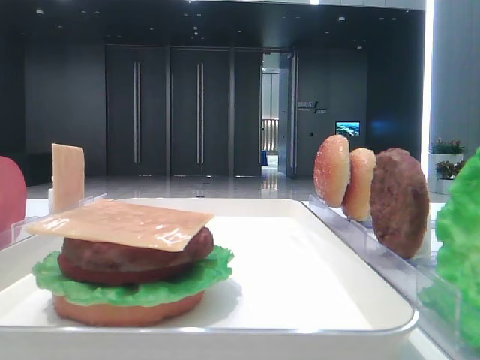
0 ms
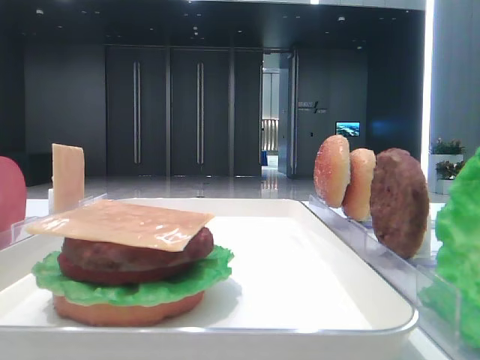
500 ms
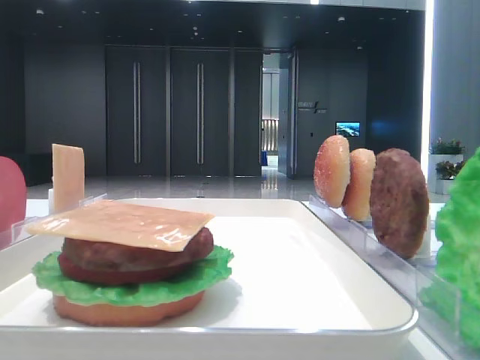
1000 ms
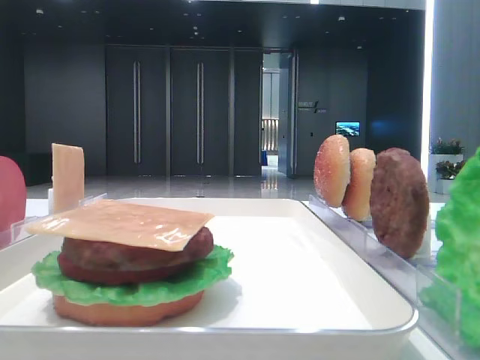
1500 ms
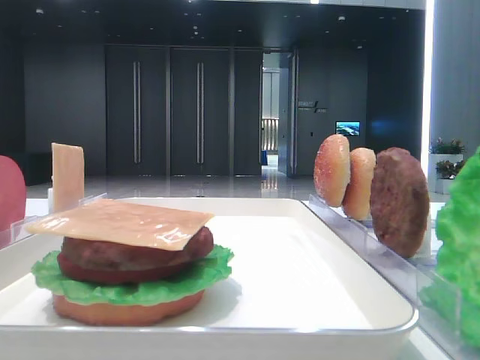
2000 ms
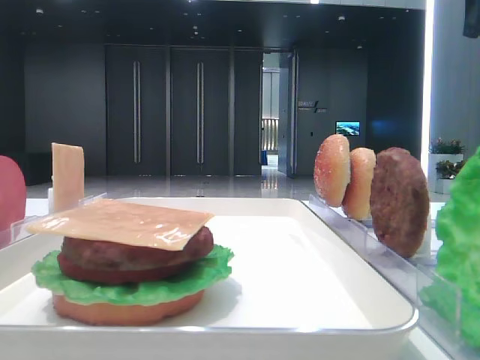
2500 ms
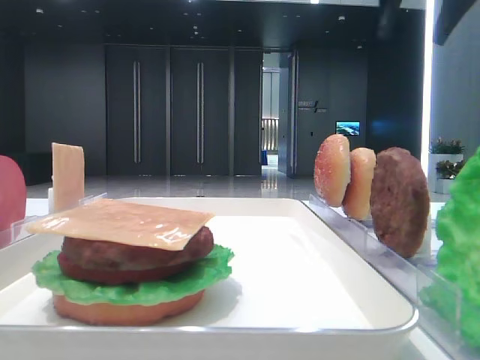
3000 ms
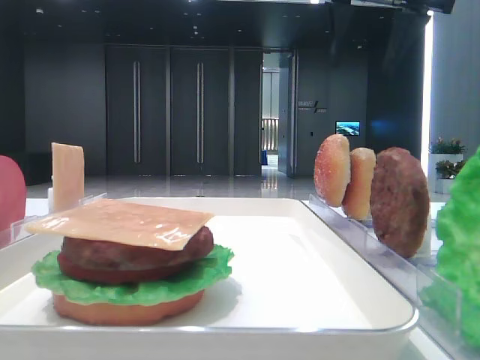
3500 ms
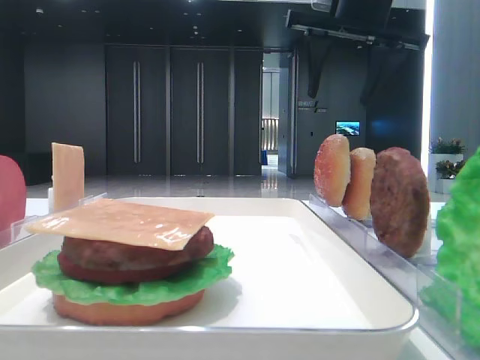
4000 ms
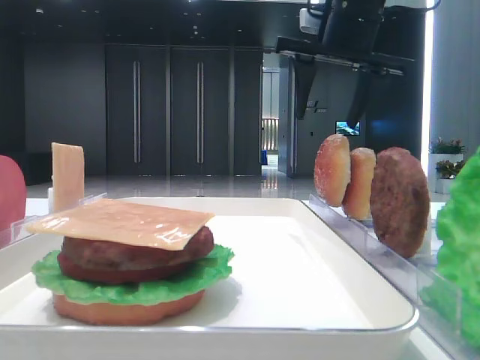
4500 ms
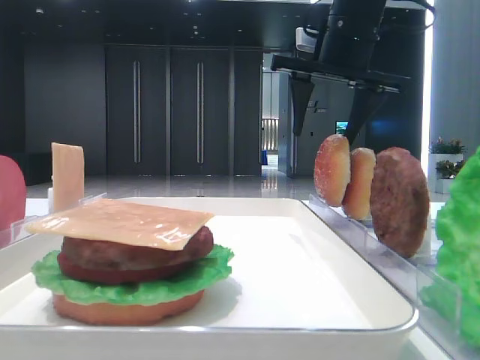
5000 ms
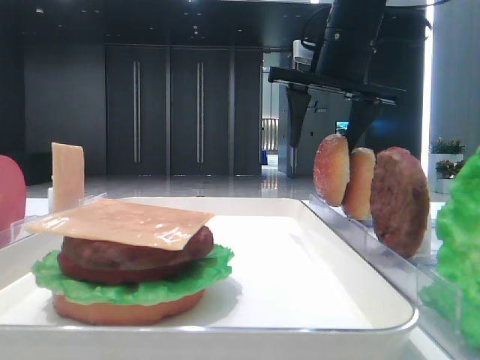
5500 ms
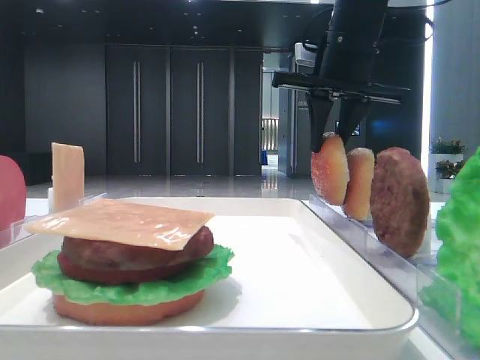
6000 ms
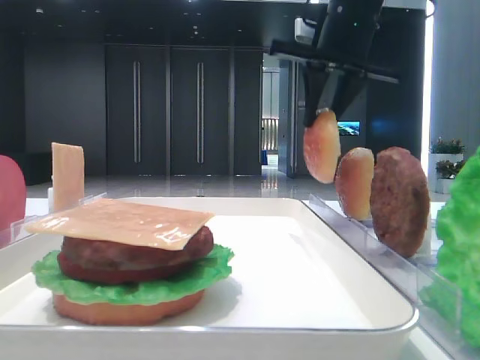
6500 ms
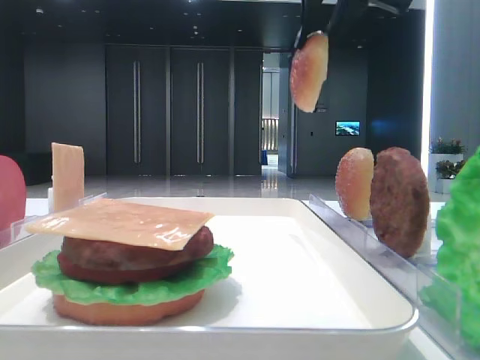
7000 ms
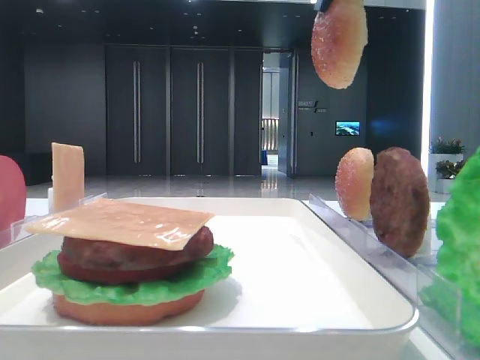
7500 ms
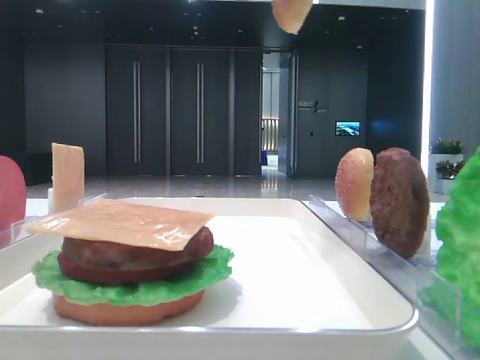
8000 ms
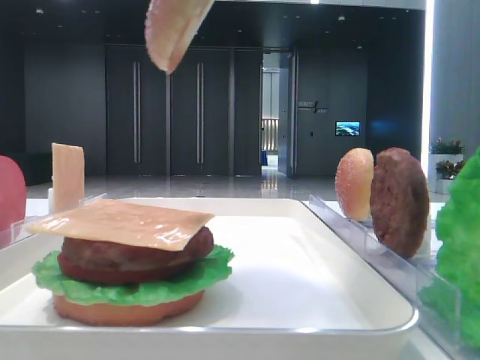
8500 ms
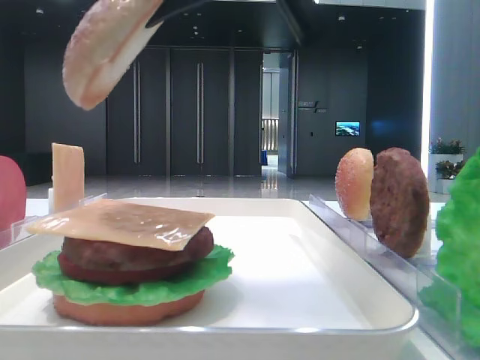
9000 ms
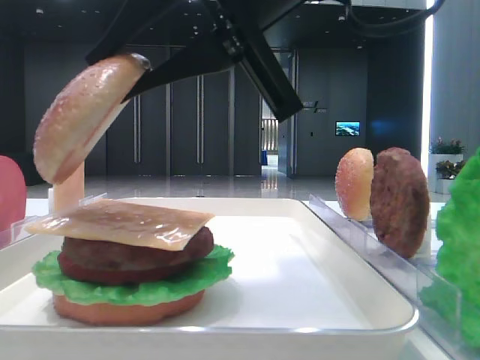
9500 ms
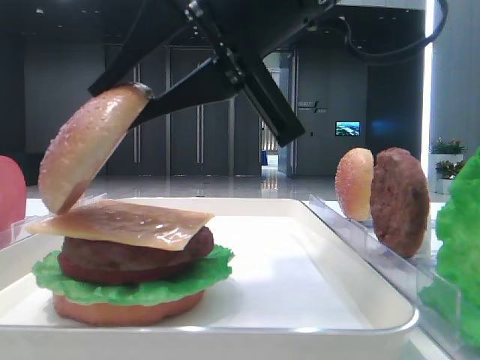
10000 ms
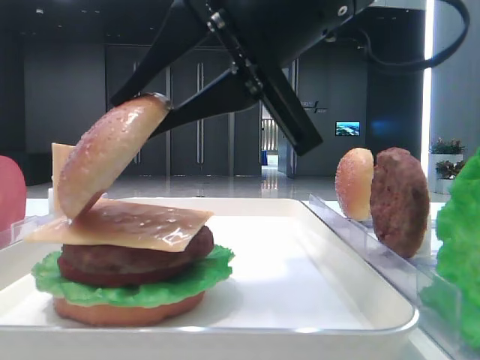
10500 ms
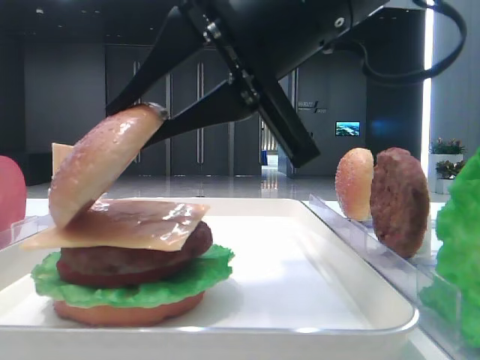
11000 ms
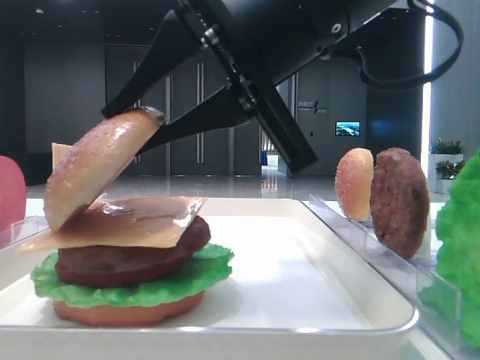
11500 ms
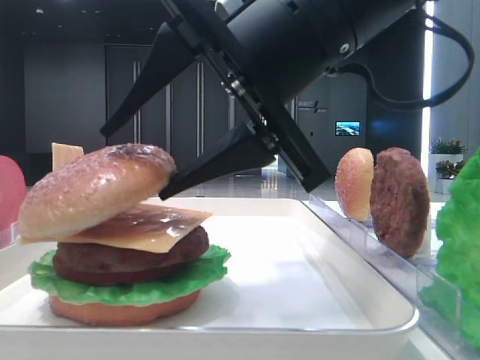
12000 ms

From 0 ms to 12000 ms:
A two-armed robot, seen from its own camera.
Step, from 0 ms to 6000 ms: Pick up the top bread slice with the right hand.
From 2000 ms to 4000 ms: The right gripper goes some 20 cm forward, to the left and downward.
From 4000 ms to 6000 ms: The right gripper is displaced downward by some 5 cm, and closes.
From 6000 ms to 8000 ms: The right gripper moves backward and upward, about 25 cm.
From 8000 ms to 10000 ms: The right gripper travels downward and to the left by about 20 cm.
From 10000 ms to 12000 ms: The right gripper opens.

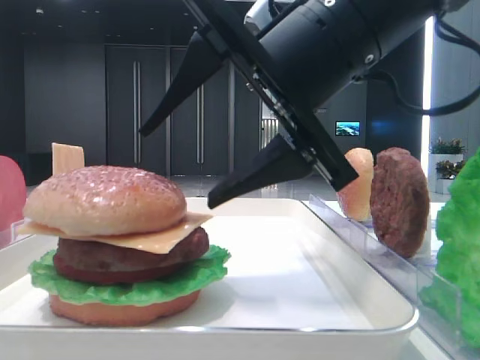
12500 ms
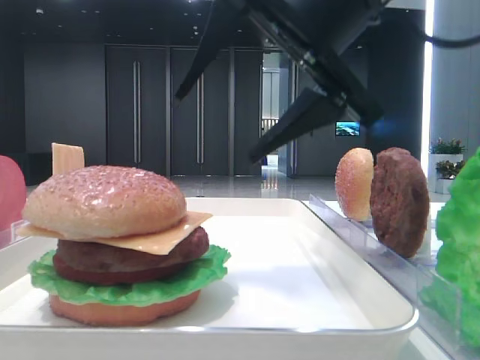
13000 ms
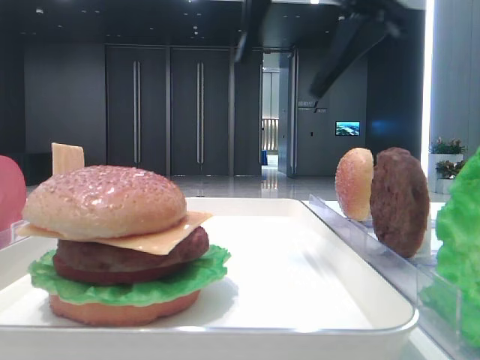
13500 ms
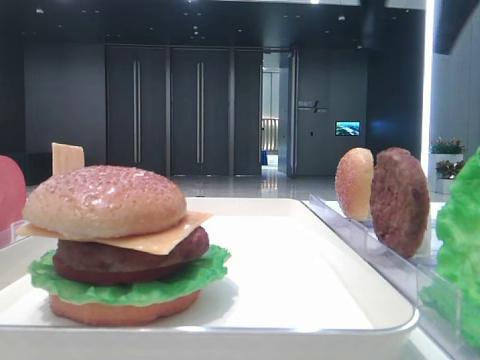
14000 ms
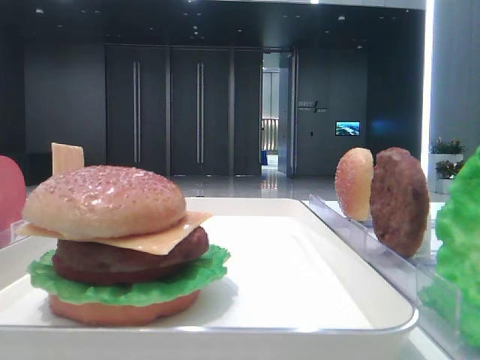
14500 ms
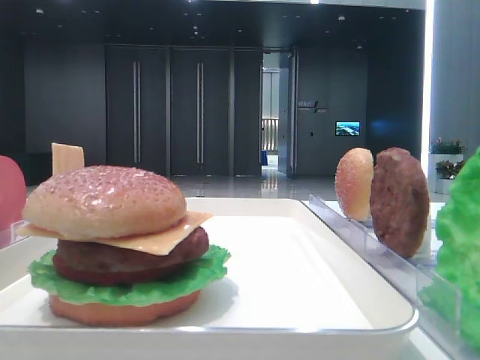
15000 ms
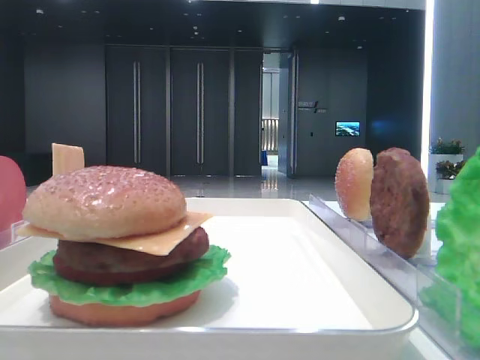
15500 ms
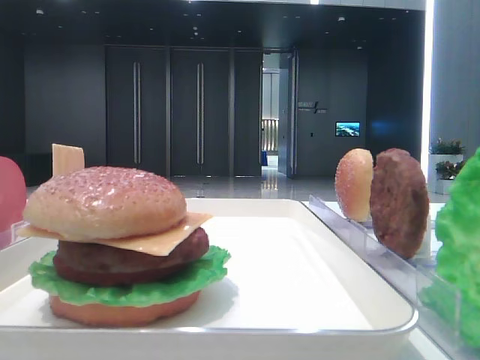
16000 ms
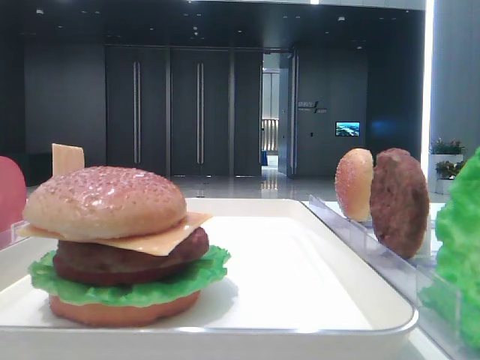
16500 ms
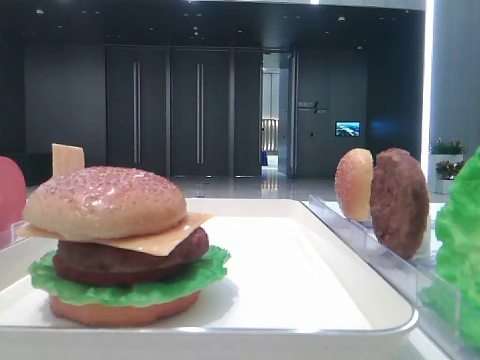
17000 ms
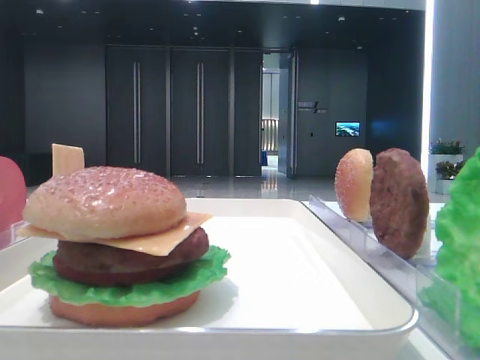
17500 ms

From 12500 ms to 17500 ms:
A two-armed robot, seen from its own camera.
From 12500 ms to 15000 ms: The right gripper moves to the right and upward, some 35 cm.

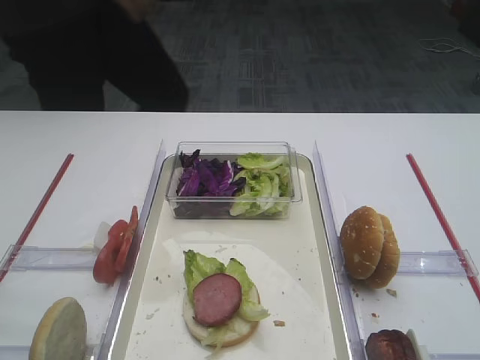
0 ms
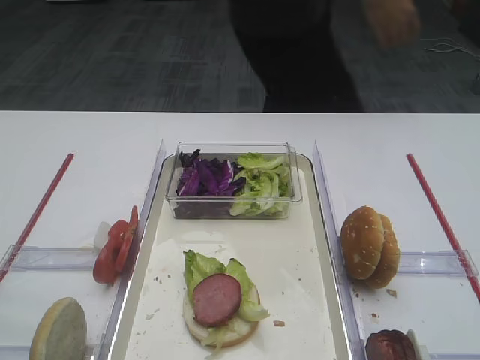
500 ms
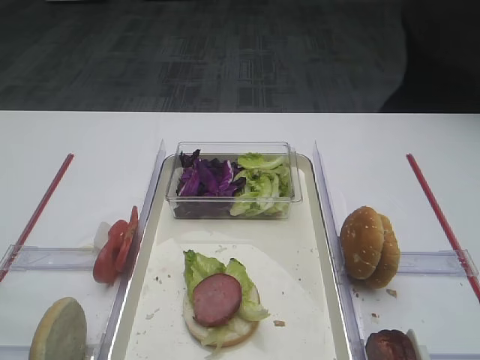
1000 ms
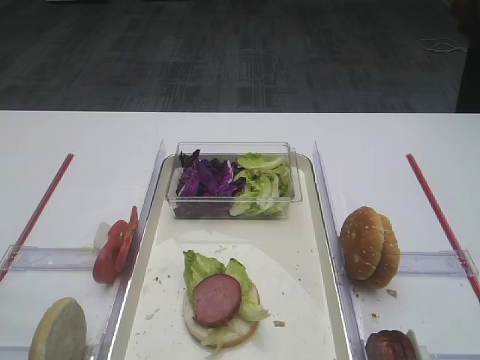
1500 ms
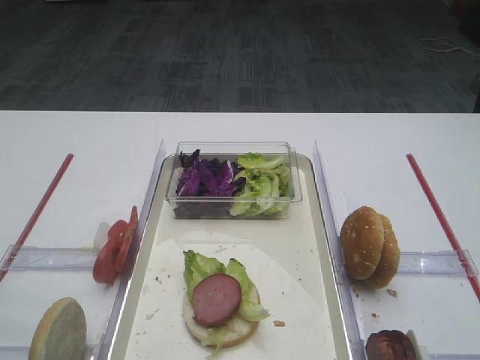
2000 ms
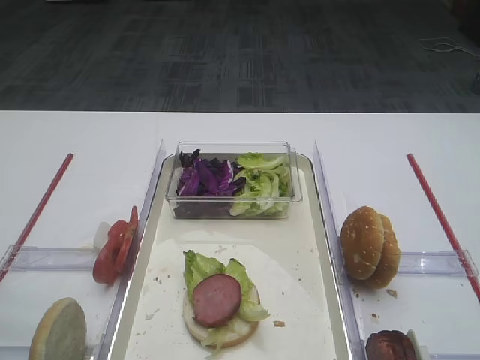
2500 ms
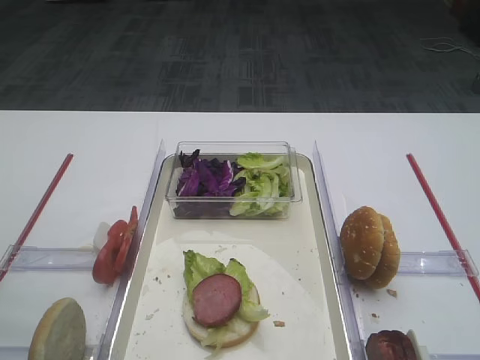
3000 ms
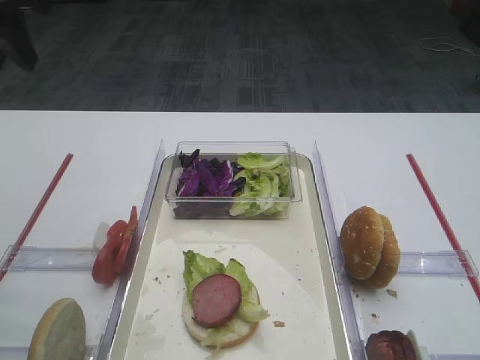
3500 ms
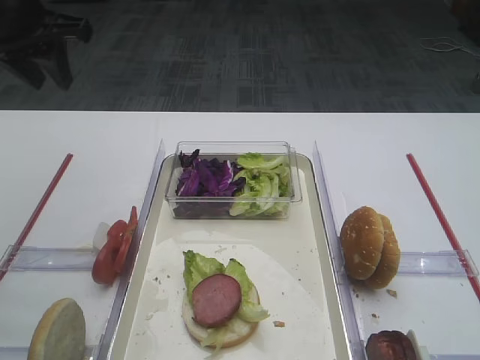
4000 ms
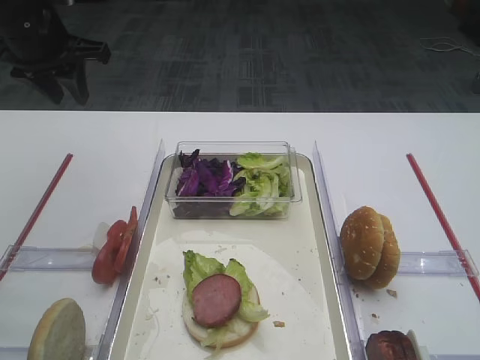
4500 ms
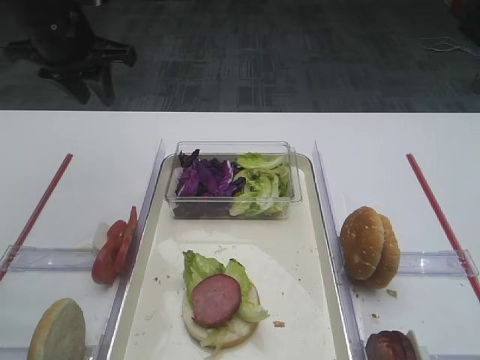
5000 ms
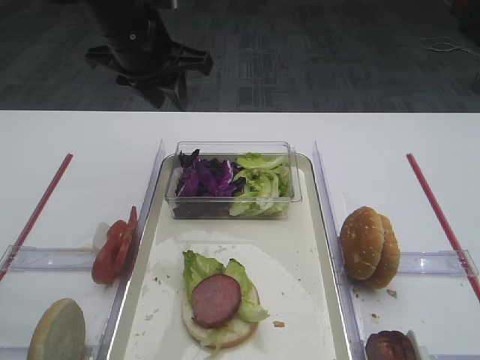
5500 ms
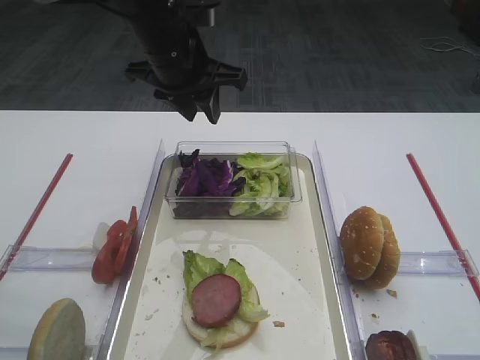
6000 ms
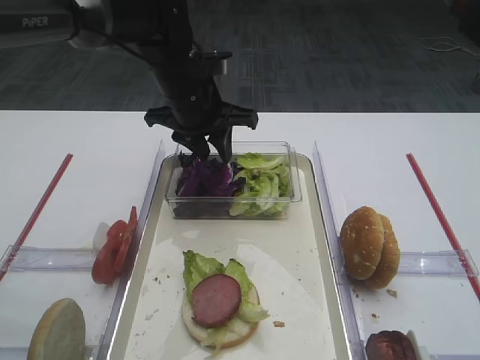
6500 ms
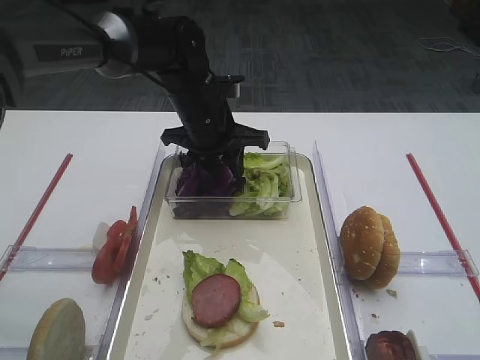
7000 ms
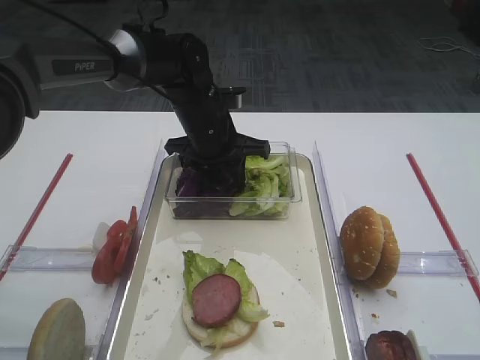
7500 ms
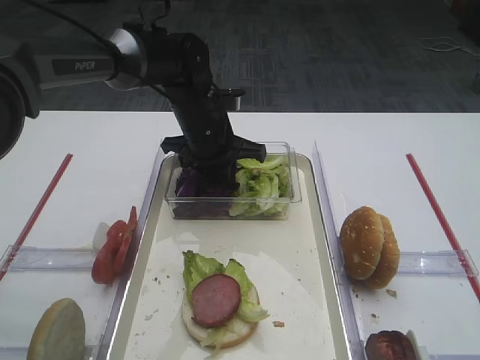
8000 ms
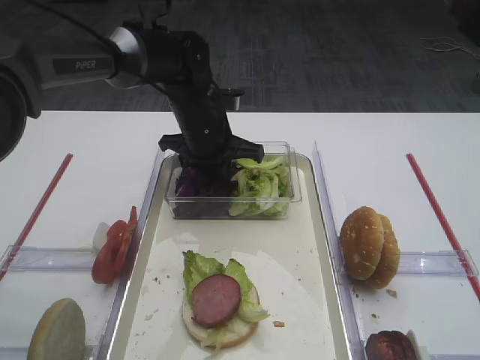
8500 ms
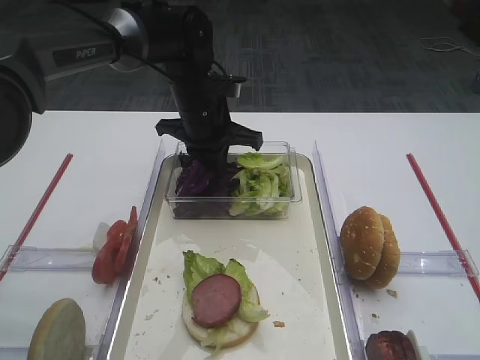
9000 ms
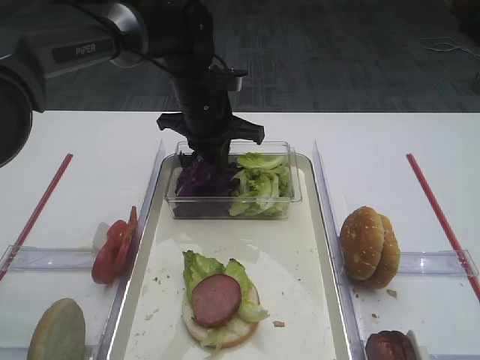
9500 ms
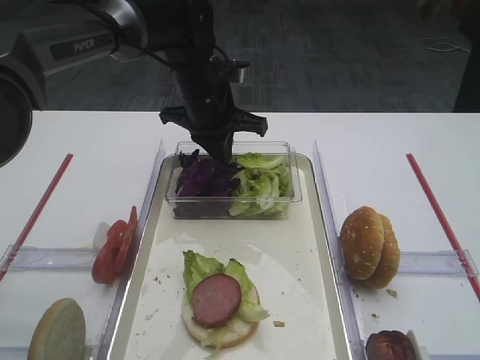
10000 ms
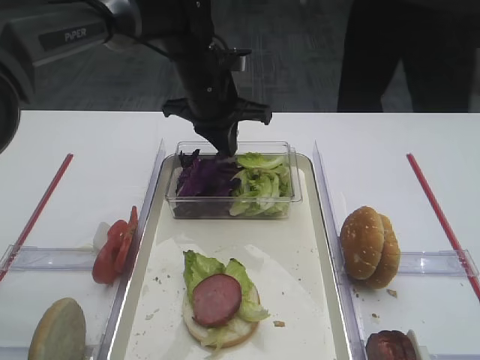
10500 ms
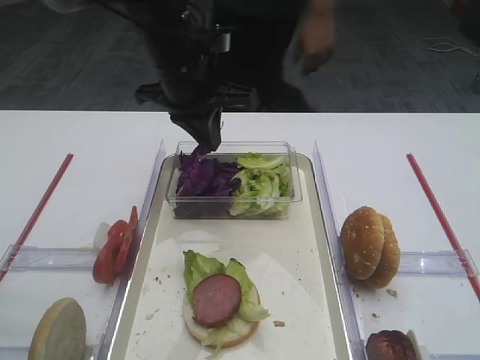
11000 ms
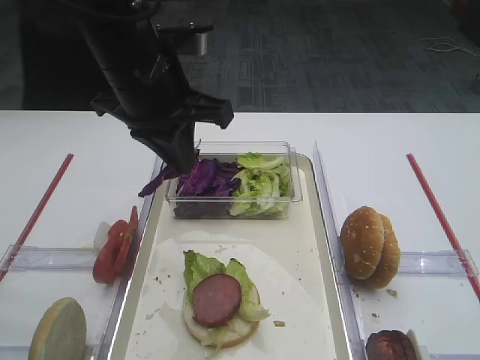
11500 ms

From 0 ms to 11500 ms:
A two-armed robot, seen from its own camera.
Step, from 0 ms to 10500 ms: Pick up the purple cabbage with the left gripper.
From 2000 ms to 4000 ms: The left gripper travels forward by approximately 35 cm.
From 4000 ms to 6000 ms: The left gripper heads to the right, covering about 15 cm.
From 6000 ms to 7500 ms: The left gripper shifts about 10 cm downward.
From 7500 ms to 9500 ms: The left gripper closes its fingers.
From 9500 ms to 11500 ms: The left gripper goes approximately 15 cm backward and upward.
